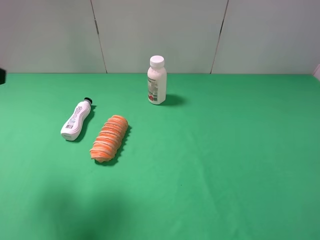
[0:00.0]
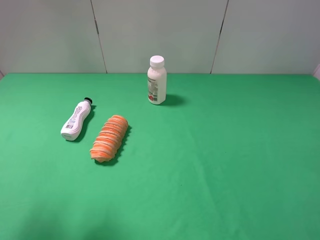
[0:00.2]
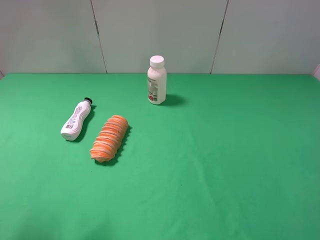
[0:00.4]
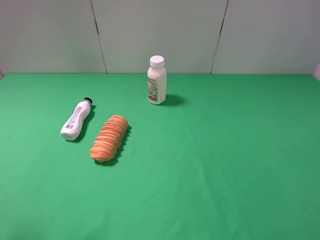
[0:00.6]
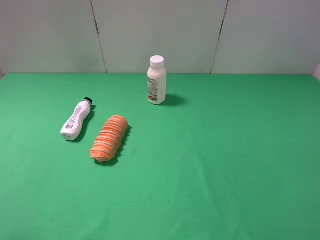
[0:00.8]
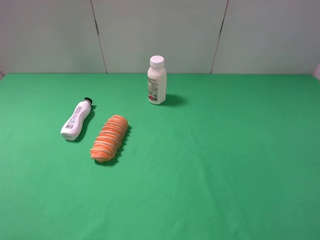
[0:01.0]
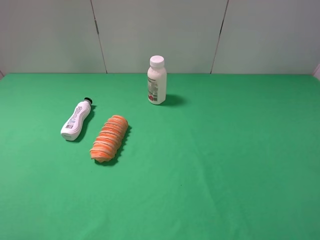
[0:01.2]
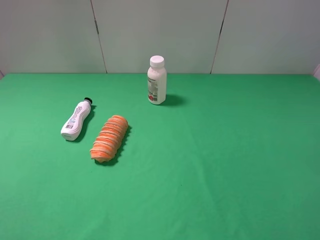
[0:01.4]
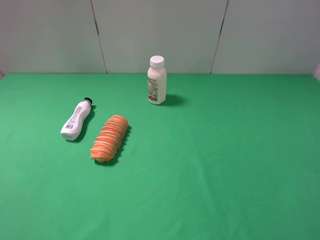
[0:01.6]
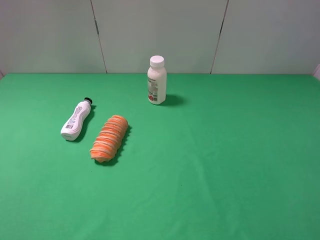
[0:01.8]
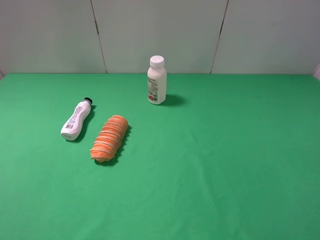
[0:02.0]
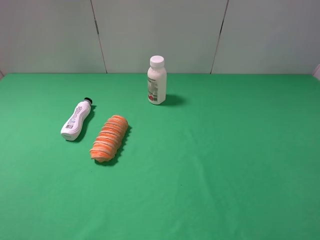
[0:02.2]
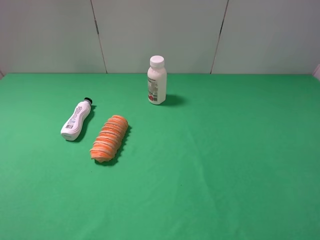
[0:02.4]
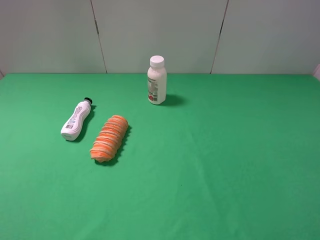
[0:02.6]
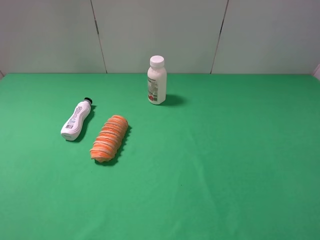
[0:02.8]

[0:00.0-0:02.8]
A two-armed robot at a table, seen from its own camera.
Task of the whole recording: use the right gripper to pick up the item and transfer it from the right gripper to the left gripper.
0:00.0 to 0:01.4: The left gripper shifts some 15 cm backward.

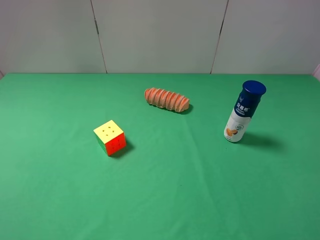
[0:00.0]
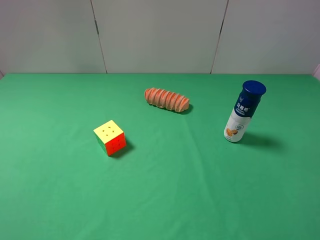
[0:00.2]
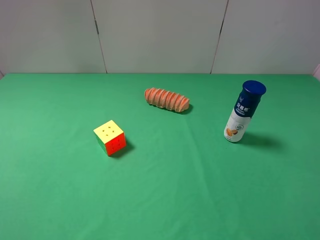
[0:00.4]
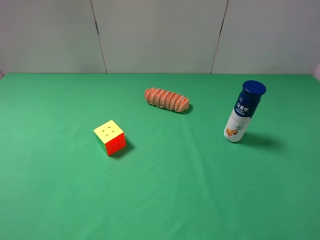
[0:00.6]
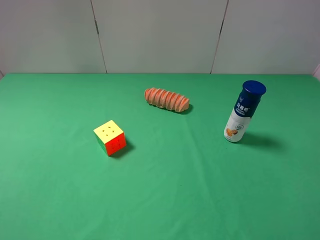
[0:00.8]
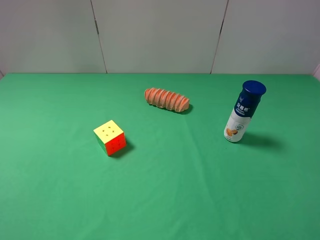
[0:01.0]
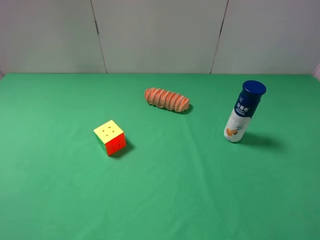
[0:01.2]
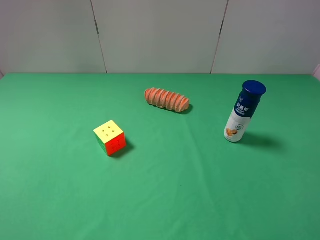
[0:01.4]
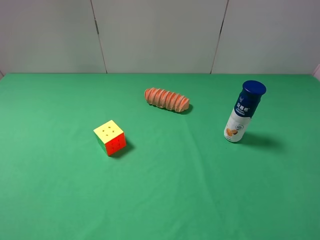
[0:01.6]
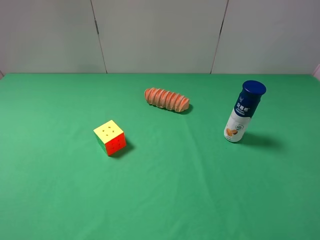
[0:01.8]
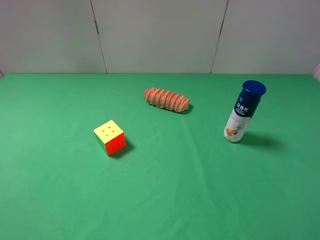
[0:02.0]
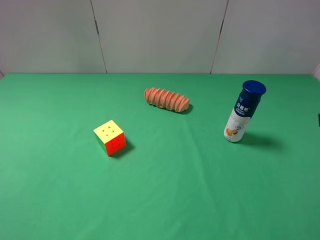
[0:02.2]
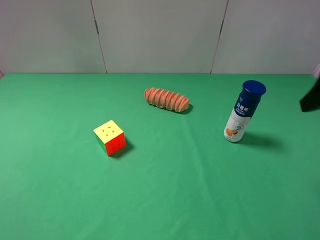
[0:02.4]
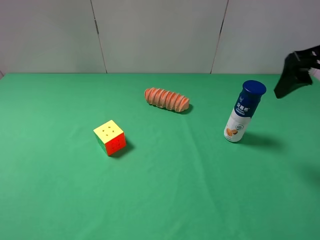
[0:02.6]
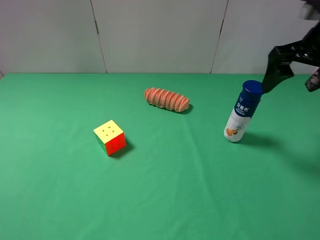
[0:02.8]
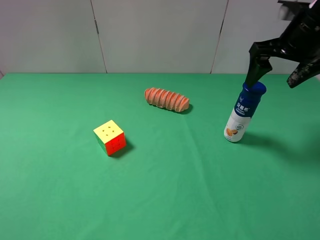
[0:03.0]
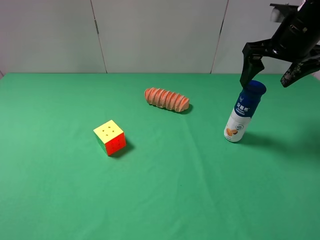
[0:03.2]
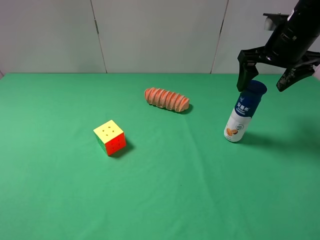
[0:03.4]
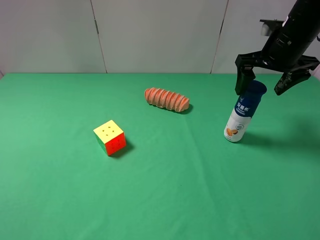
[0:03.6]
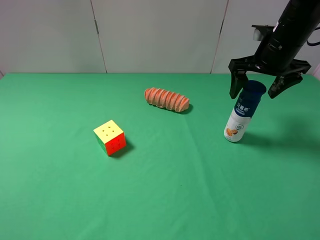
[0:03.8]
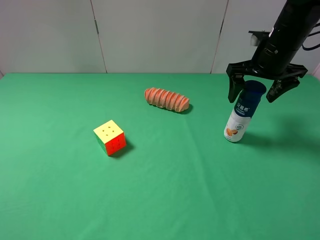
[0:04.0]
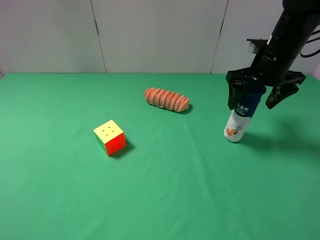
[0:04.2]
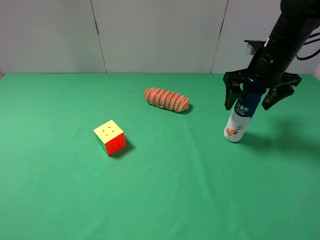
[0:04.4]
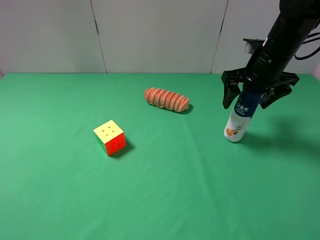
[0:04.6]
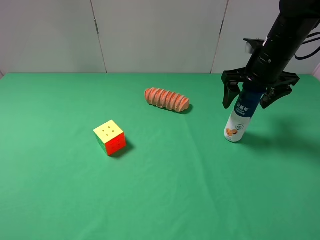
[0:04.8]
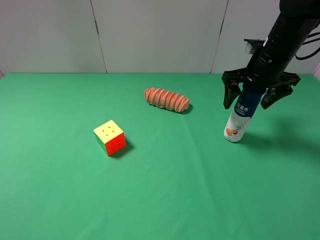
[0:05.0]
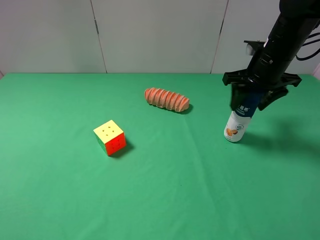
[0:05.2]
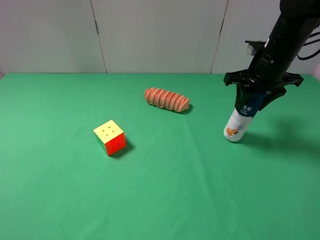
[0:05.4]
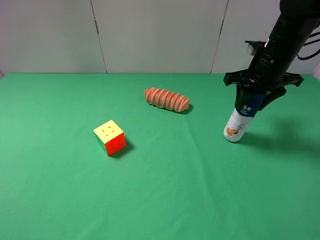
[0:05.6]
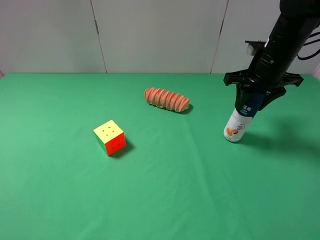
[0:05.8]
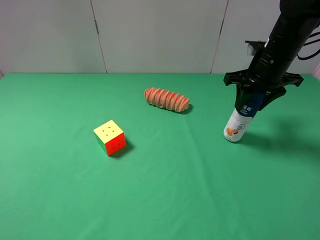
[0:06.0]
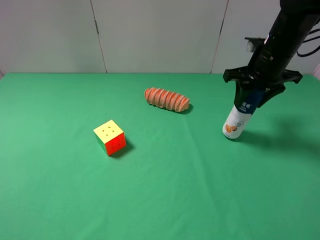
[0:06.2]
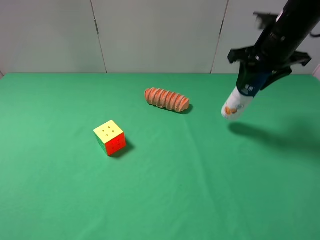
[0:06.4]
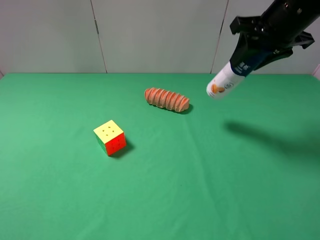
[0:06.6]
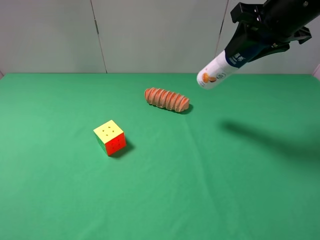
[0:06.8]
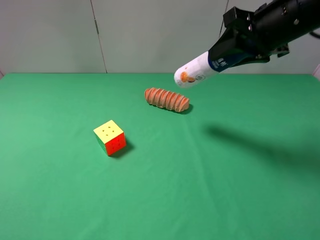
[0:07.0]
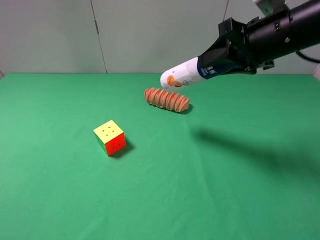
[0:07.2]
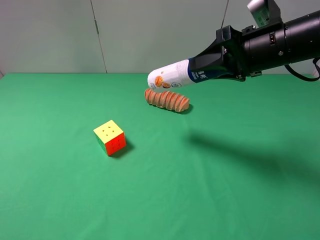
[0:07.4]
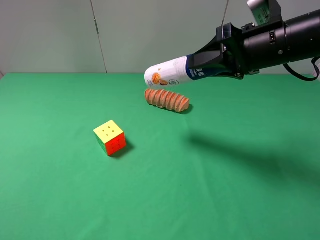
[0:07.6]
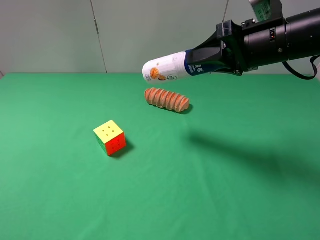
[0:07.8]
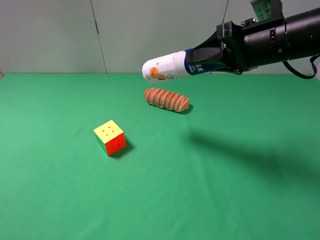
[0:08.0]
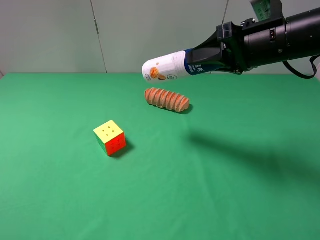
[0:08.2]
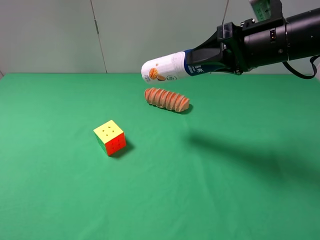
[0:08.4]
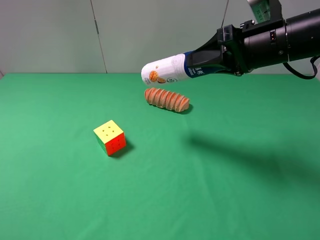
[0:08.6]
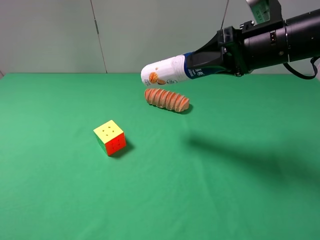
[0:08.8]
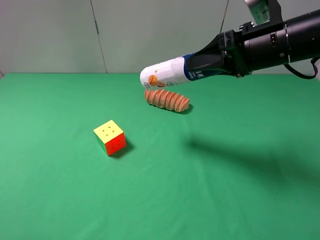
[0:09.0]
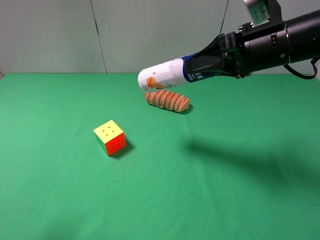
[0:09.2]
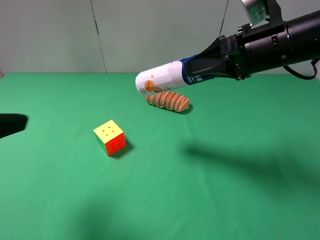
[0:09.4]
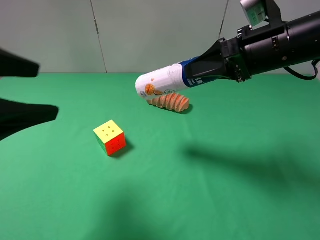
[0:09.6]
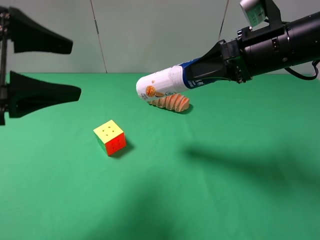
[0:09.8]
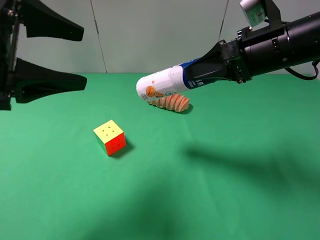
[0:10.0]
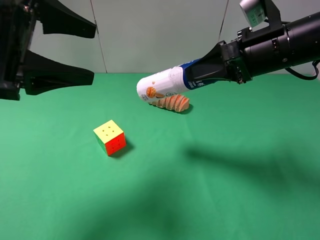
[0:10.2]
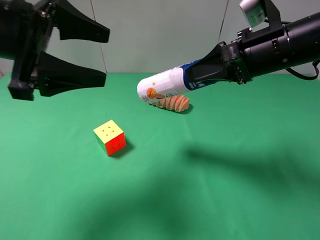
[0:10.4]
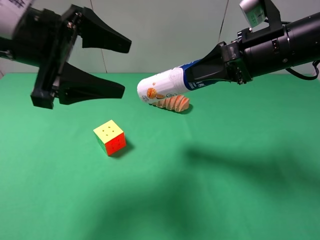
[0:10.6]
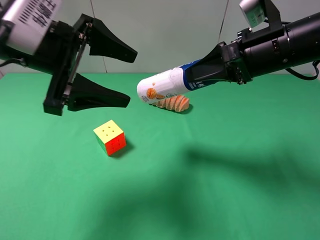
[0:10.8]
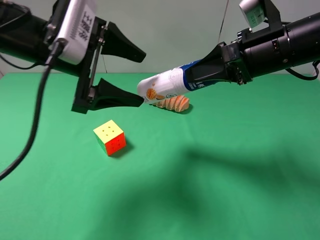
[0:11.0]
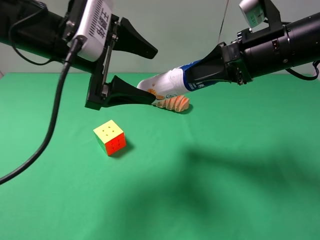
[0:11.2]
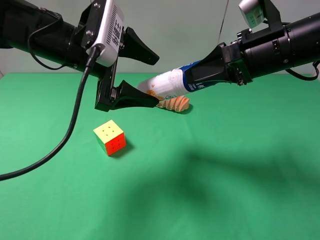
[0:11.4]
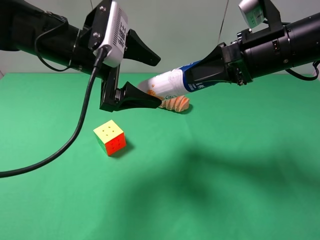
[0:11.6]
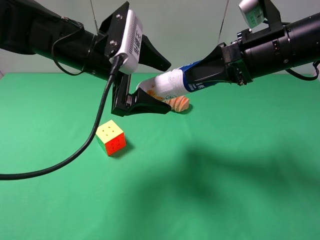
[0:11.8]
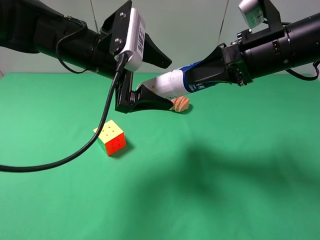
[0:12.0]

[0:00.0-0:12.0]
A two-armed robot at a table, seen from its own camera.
Task of the whole recording: use the right gripper to pick up the item and transfer it from the right gripper to the left gripper.
Step, 0:00.0 to 0:05.2: Use the right gripper to grab the yogurt on the right side of the table.
0:00.0 to 0:01.6: Both grippers stay about where they are.
0:01.6 to 0:03.0: The right gripper shifts roughly 30 cm forward.
0:03.0 to 0:04.4: The right gripper shifts some 5 cm downward.
0:04.4 to 0:06.0: The right gripper closes up.
0:06.0 to 0:07.6: The right gripper shifts some 10 cm backward and upward.
0:07.6 to 0:09.0: The grippers move only a little.
0:09.0 to 0:10.4: The left gripper moves forward and to the right, some 25 cm.
0:10.4 to 0:12.0: The left gripper is displaced to the right and forward by roughly 10 cm.

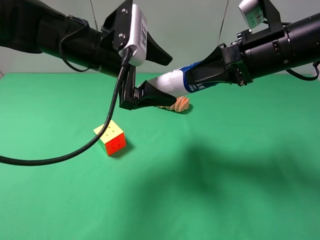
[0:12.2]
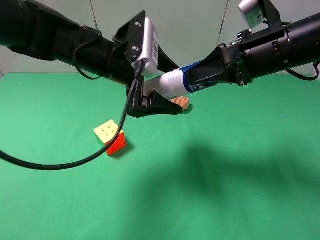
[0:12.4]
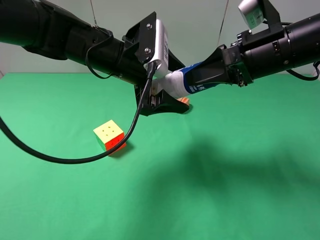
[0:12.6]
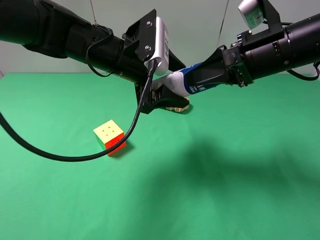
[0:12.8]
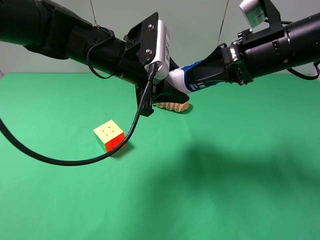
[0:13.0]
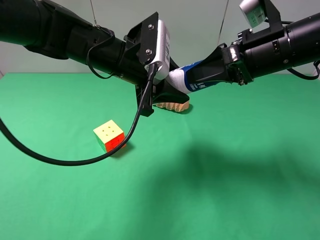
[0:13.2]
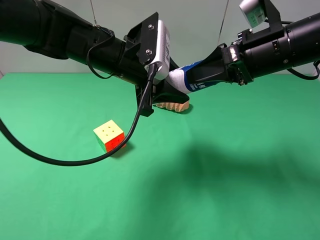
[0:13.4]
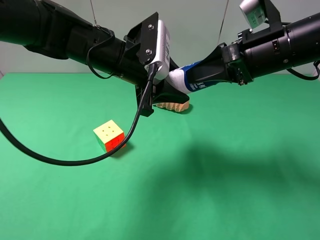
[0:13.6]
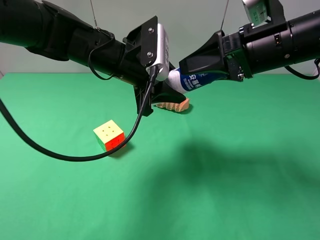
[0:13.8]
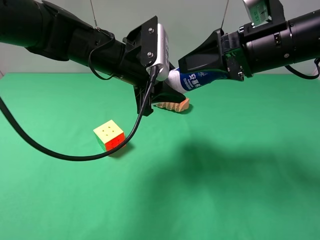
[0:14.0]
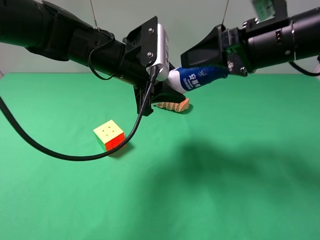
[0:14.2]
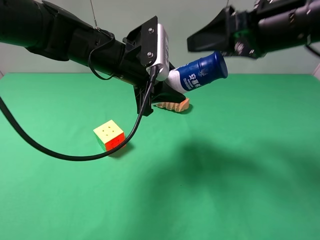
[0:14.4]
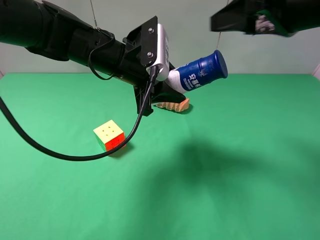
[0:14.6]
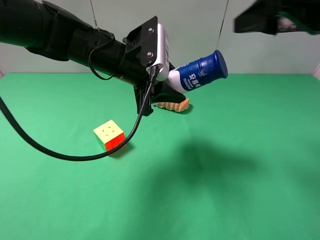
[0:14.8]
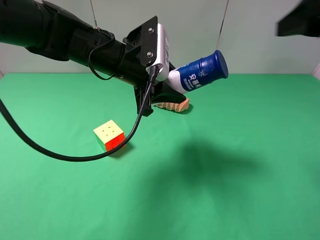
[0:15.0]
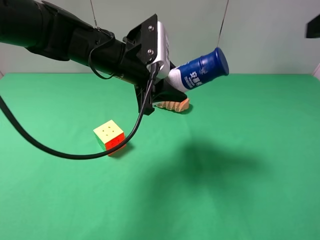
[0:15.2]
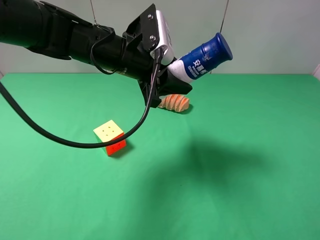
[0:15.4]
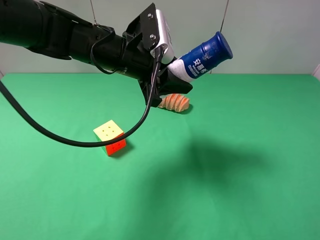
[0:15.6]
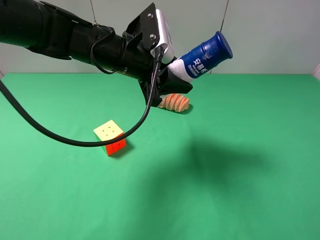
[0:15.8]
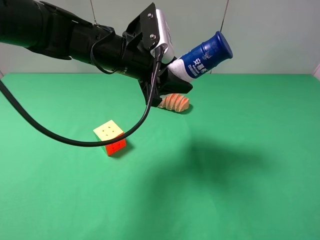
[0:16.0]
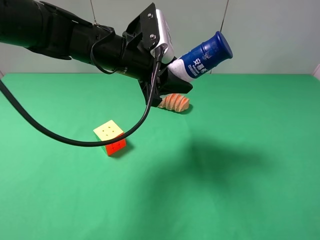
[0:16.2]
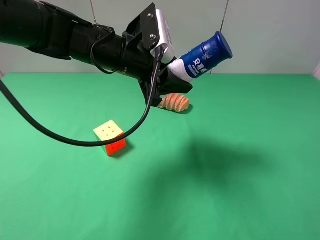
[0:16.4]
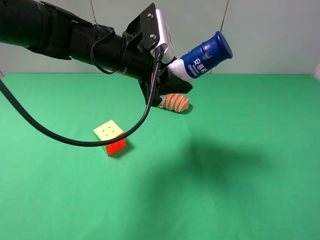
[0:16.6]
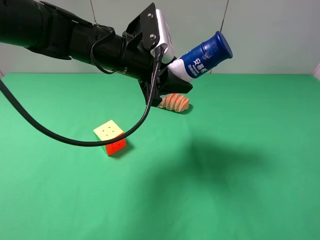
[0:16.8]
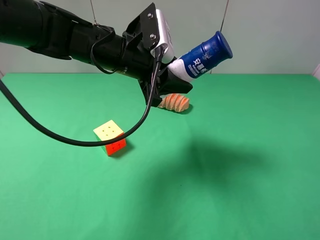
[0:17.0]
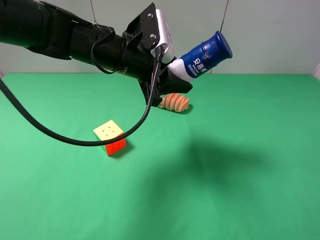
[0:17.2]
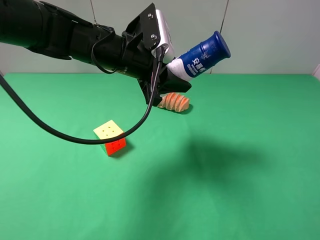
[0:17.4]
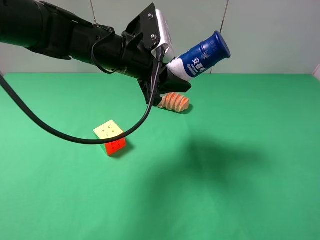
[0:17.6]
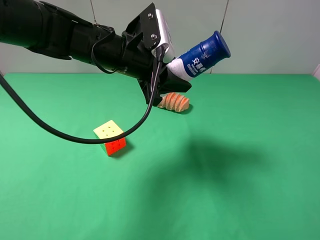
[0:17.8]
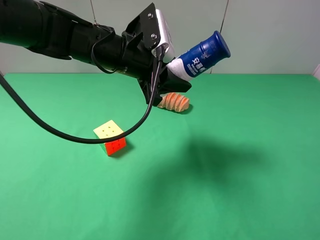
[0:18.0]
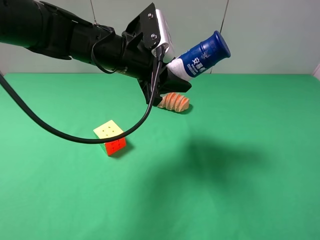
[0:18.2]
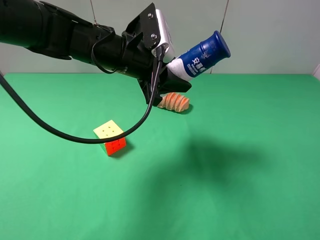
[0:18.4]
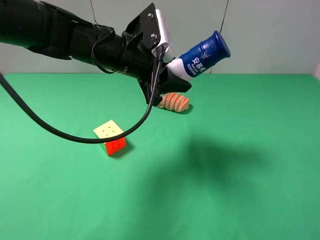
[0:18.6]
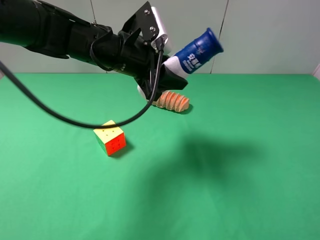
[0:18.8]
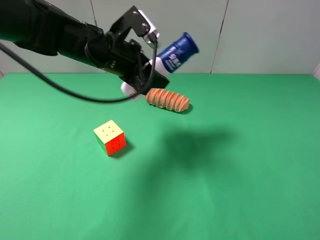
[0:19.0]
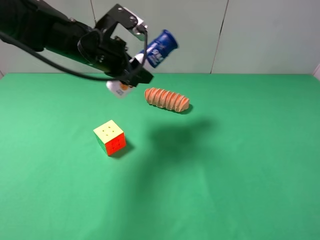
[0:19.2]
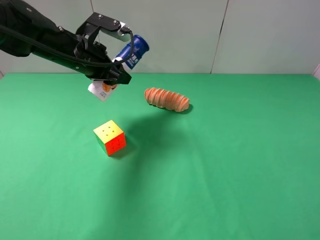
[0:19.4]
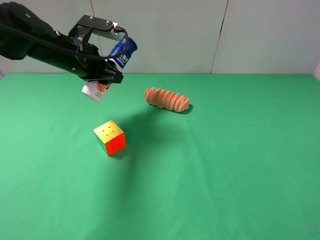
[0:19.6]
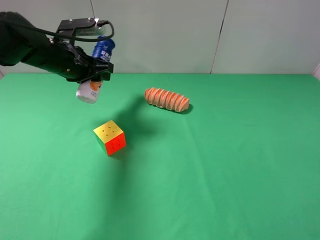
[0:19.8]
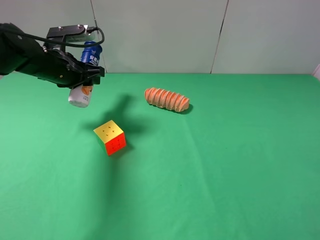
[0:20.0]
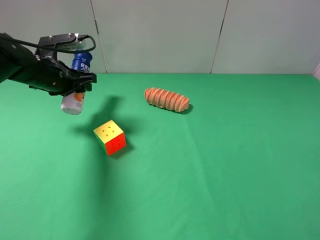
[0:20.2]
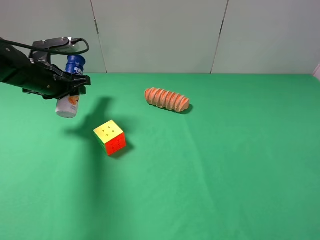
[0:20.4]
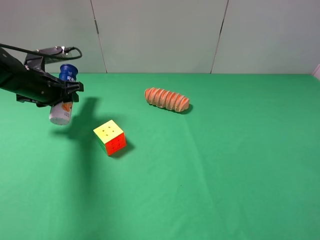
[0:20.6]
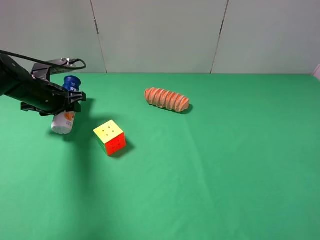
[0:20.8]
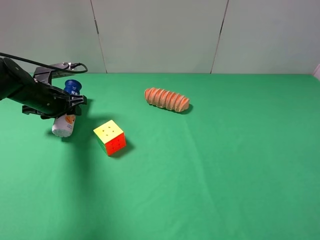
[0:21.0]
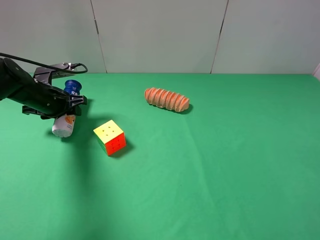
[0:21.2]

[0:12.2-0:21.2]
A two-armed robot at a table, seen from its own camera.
Task of the whole recording: use the right gripper to pick up the item and transfer it from the right gripper to the left gripper.
Step, 0:12.2 to 0:14.4: Pass the yogurt to the left gripper.
0:12.2 to 0:13.8: The left gripper closes. Meanwhile the right gripper opens.
0:13.8 to 0:15.2: The right gripper shifts approximately 15 cm upward, to the right and backward.
0:15.2 to 0:16.6: The right gripper travels backward and downward by roughly 20 cm.
0:16.6 to 0:18.2: There are only small adjustments of the grippers.
0:18.2 to 0:19.8: The left gripper is displaced to the left by roughly 15 cm.
0:19.8 to 0:21.2: The left gripper goes roughly 10 cm downward and to the left.
